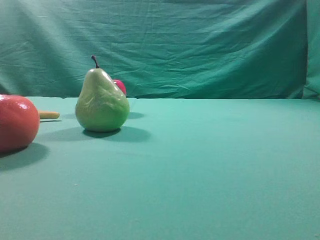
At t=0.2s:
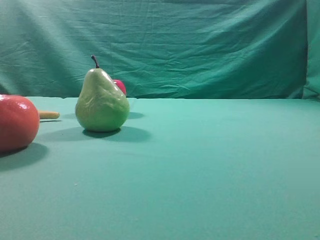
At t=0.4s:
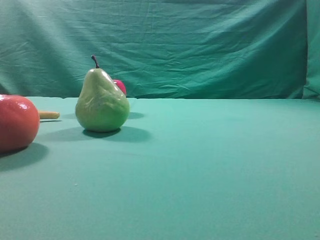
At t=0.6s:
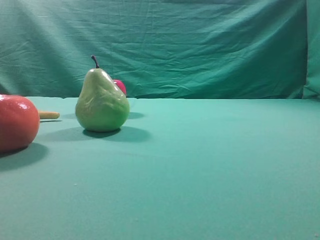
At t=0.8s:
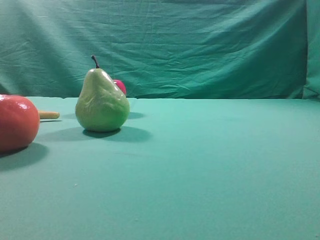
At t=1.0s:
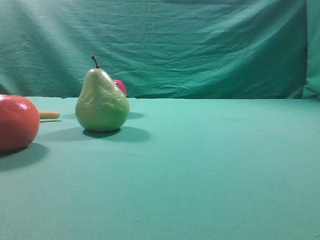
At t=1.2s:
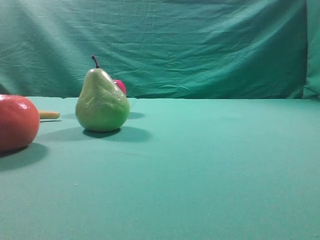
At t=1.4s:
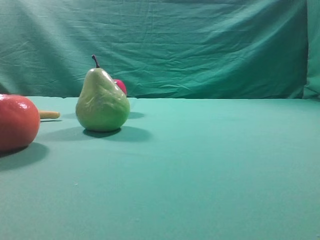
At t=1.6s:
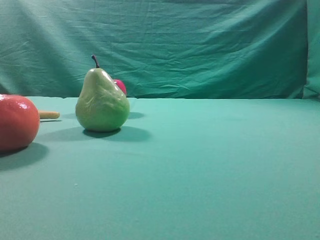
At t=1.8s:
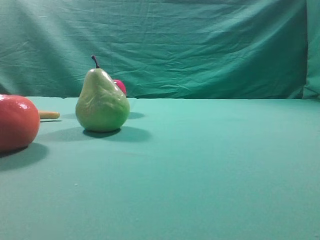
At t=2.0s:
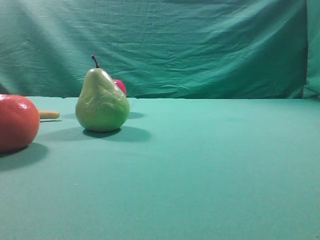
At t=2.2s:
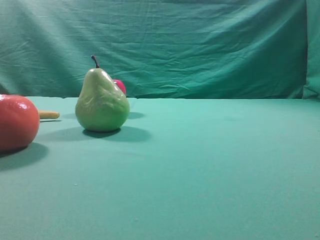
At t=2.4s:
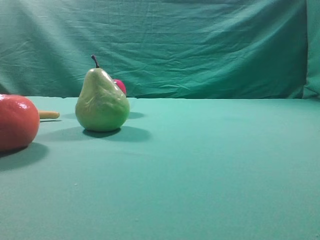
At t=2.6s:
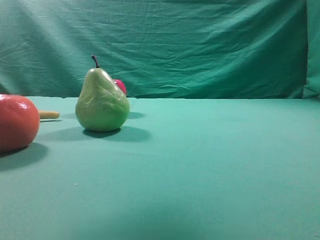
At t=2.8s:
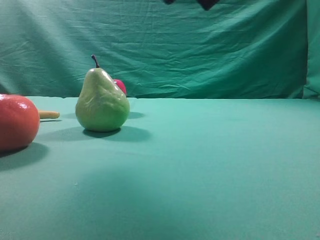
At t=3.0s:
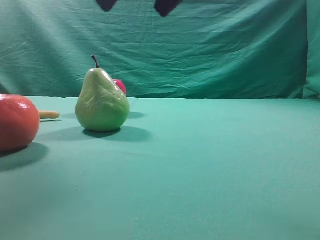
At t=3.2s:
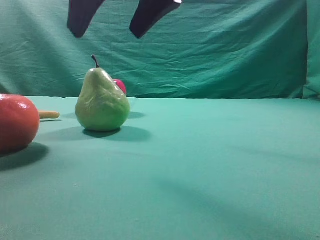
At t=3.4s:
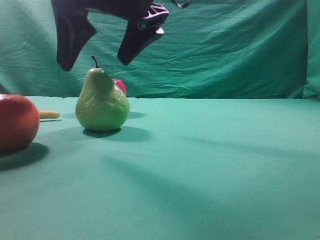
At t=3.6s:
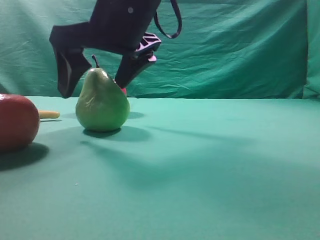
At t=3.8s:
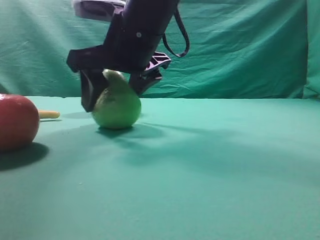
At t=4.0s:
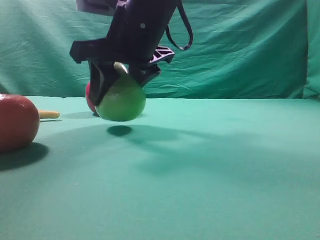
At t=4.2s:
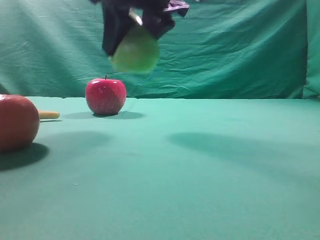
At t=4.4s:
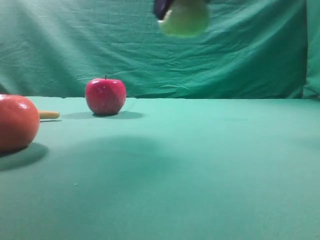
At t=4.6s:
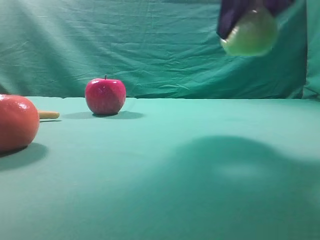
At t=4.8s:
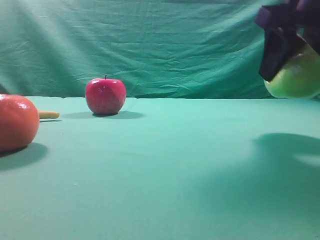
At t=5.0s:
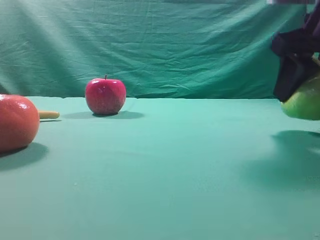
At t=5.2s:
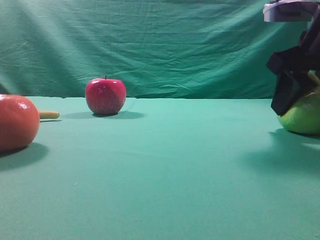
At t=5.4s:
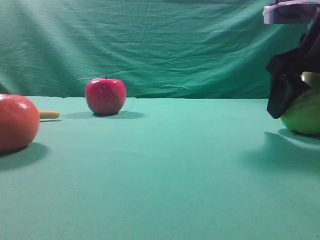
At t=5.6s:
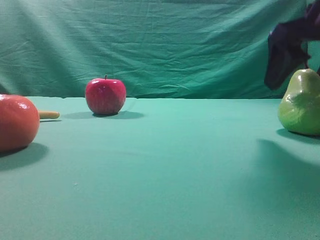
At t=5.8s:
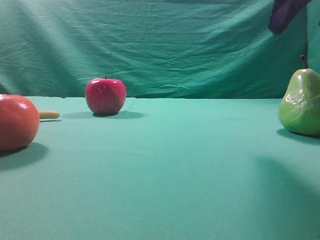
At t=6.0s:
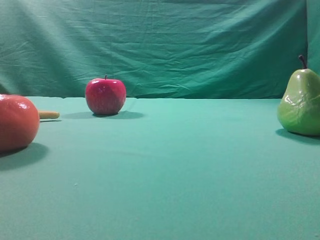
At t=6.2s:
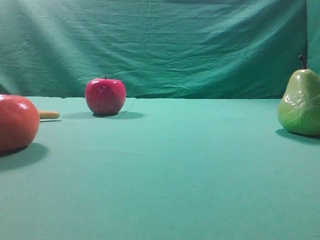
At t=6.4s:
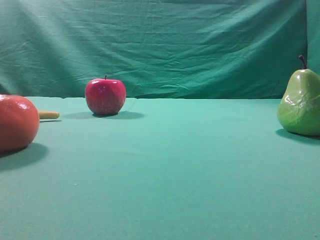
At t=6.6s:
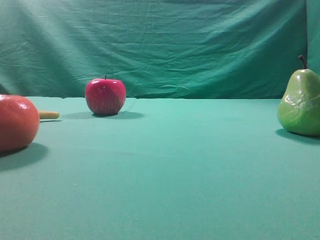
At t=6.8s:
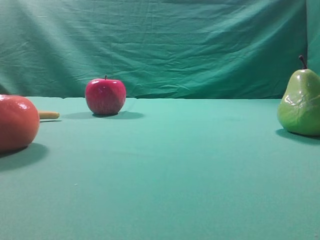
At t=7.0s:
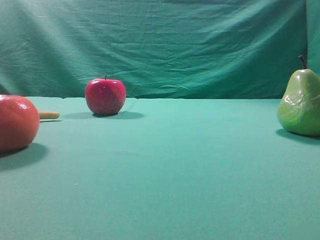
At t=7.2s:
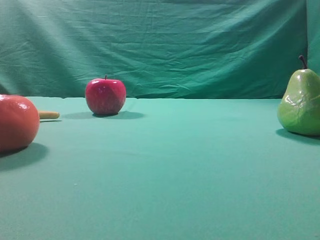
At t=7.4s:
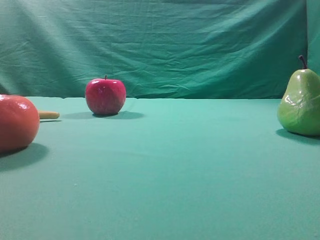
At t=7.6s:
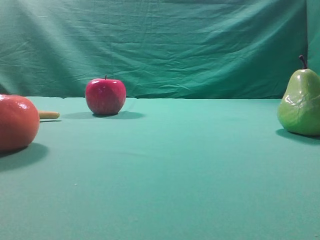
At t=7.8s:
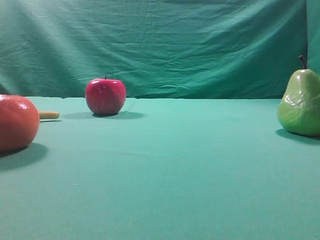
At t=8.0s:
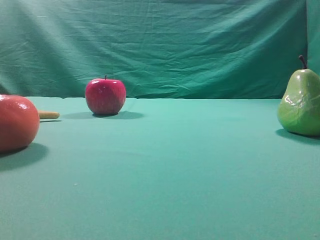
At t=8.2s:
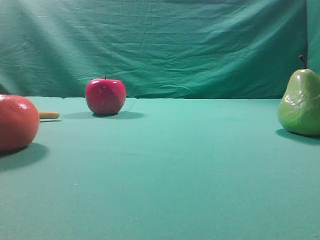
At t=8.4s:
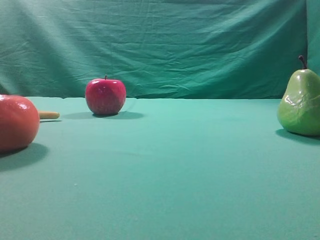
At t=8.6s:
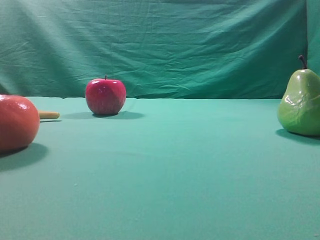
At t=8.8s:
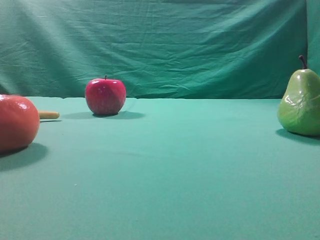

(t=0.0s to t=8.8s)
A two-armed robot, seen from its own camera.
Task of the whole recording: Grasp the pear and place it on one side of the table.
Step, t=0.0s - t=4.0s: Grasp the high-fiber fruit.
Step, t=4.2s - t=5.6s: Place it on the right side of the table.
